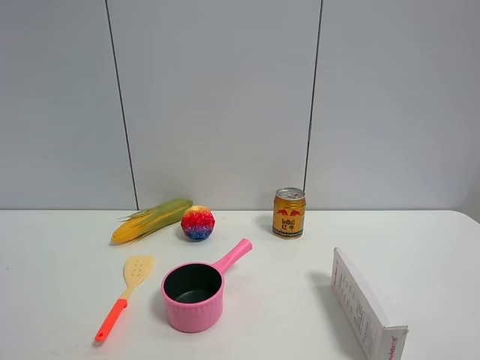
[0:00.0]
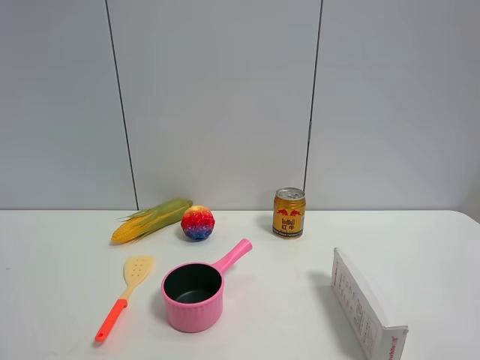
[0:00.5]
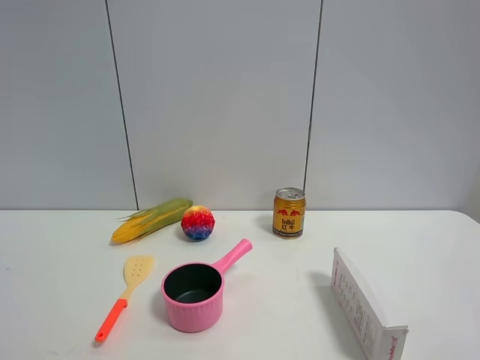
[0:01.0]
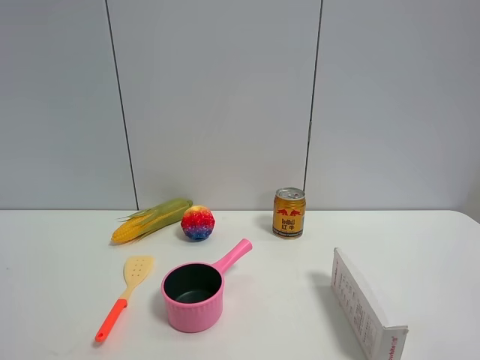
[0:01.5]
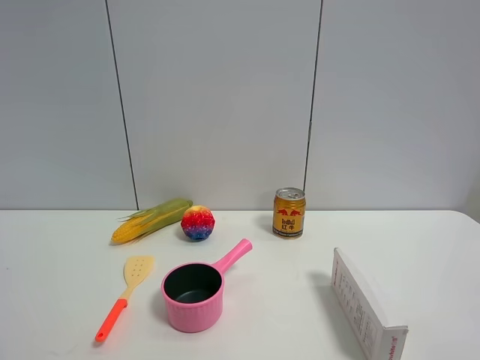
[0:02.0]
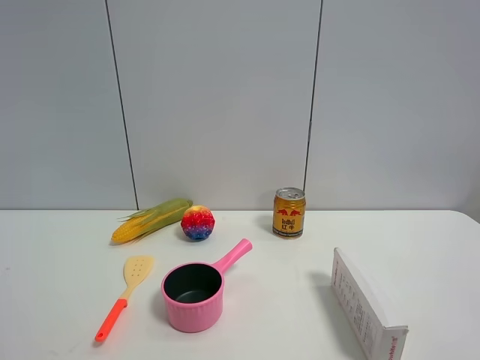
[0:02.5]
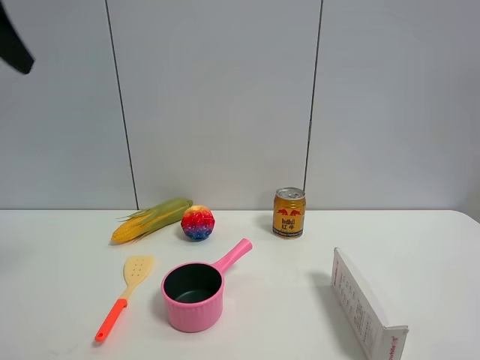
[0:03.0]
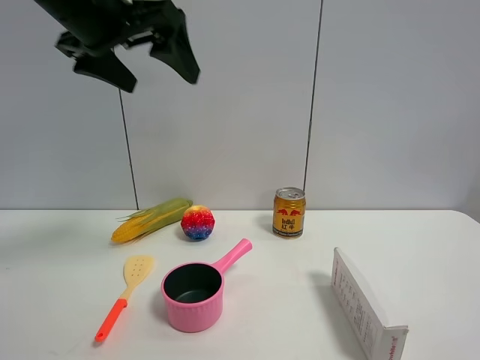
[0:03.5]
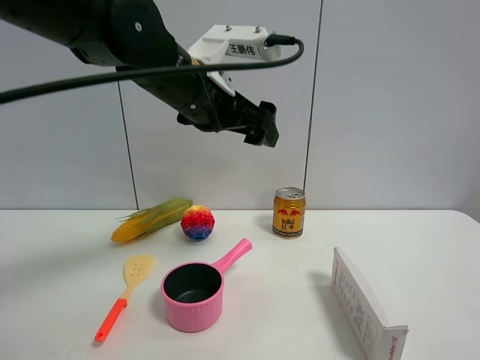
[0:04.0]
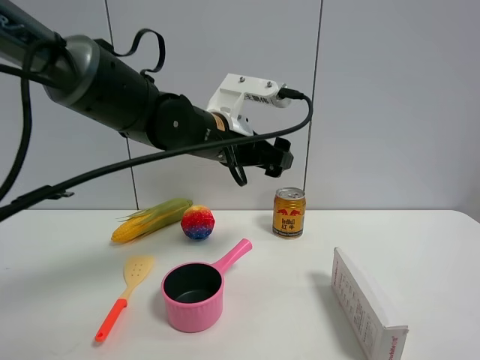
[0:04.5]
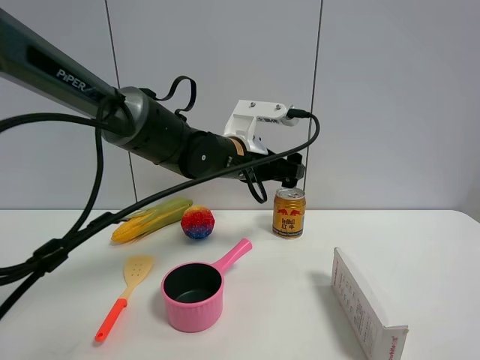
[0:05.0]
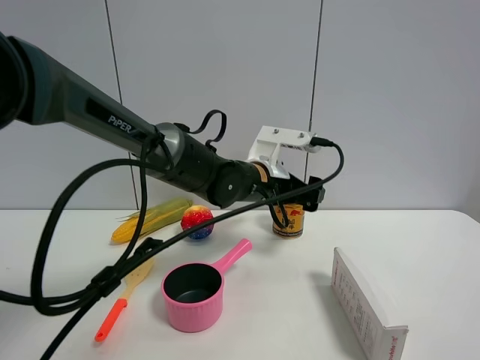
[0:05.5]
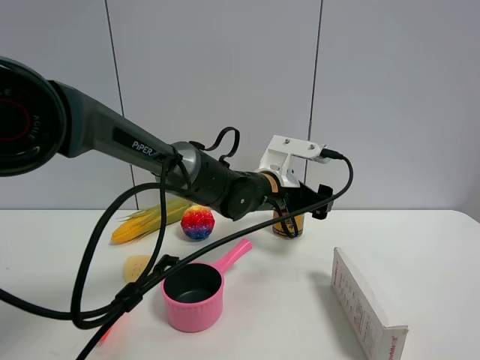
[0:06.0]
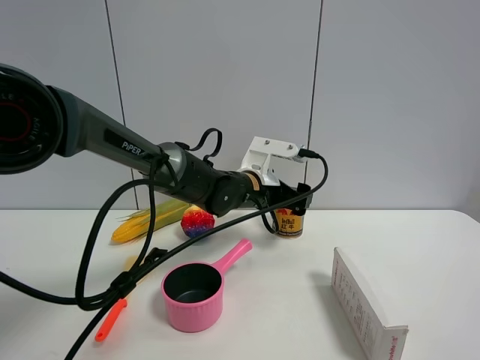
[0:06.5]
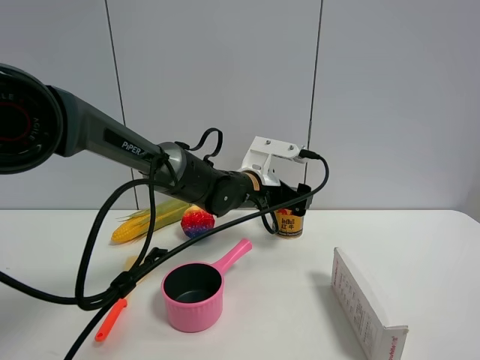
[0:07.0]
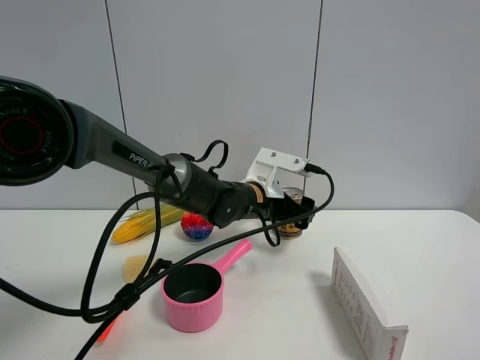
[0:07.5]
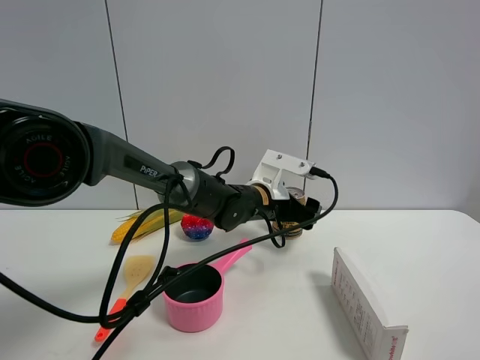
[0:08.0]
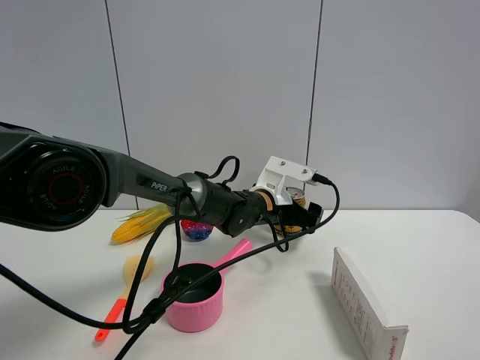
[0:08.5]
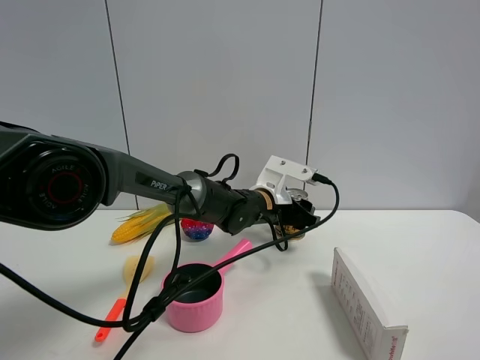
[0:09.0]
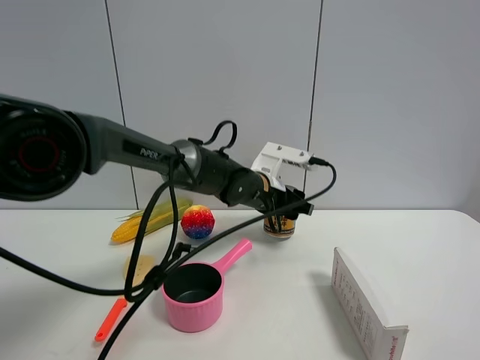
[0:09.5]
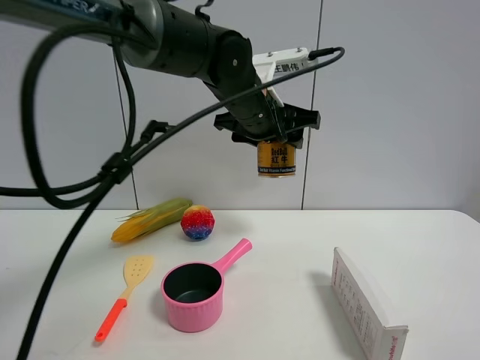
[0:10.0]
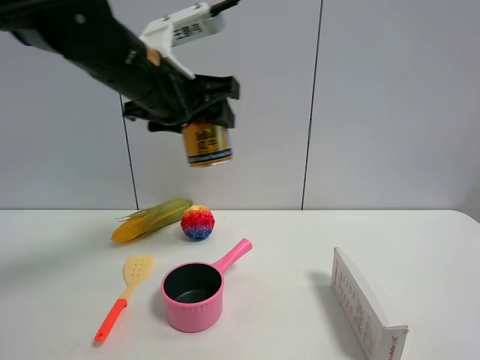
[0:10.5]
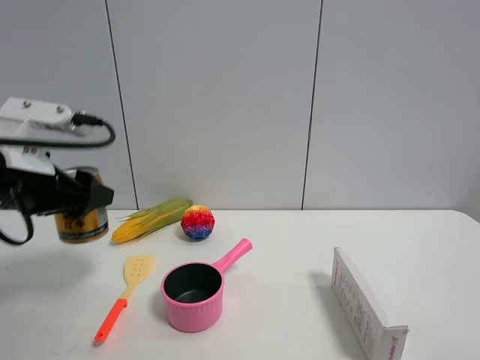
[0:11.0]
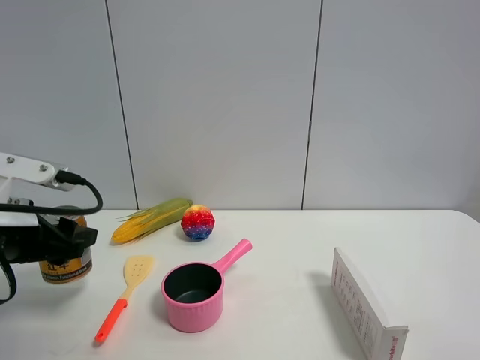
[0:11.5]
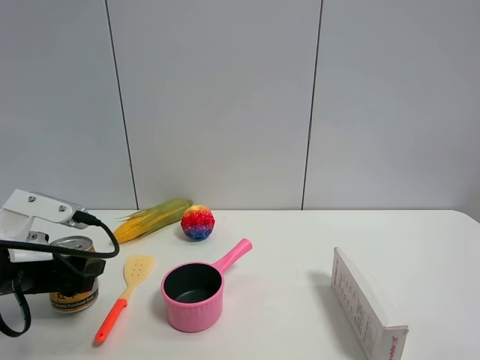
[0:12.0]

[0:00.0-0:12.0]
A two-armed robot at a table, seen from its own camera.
Task of the whole recording: the gripper move the object.
Step, 0:00.0 to 0:08.5: Grasp the red bull with the left gripper.
0:00.0 to 0:02.0: The two grippers keep their place.
0:02.0 to 0:04.0: The left gripper heads forward and to the right, covering some 40 cm.
0:04.0 to 0:06.0: The left gripper goes approximately 20 cm downward, to the right and forward.
0:06.0 to 0:08.0: The grippers move only a little.
0:08.0 to 0:10.0: The left gripper travels upward by roughly 15 cm, and closes its fingers.
0:10.0 to 0:12.0: The left gripper shifts approximately 35 cm to the left, downward and backward.

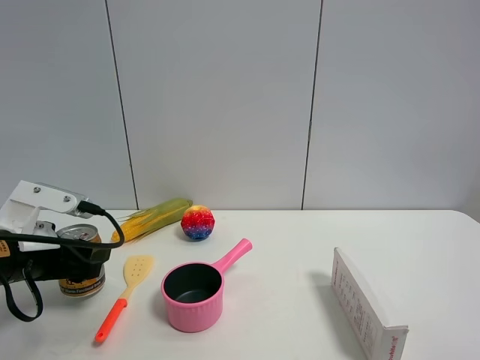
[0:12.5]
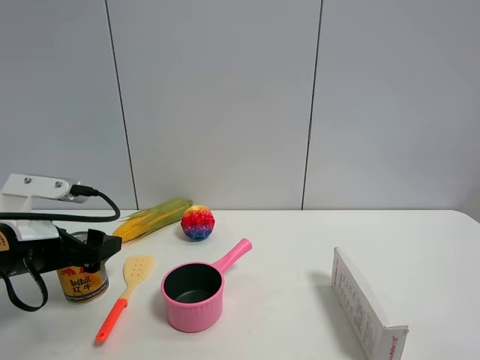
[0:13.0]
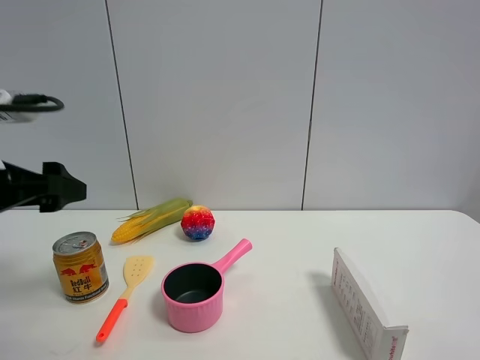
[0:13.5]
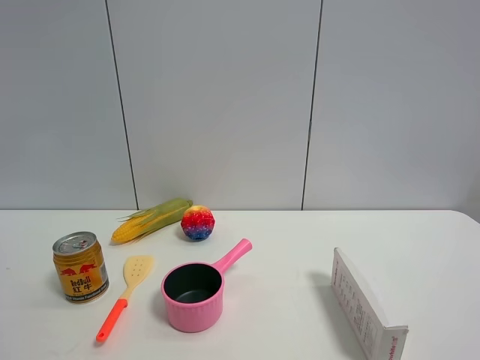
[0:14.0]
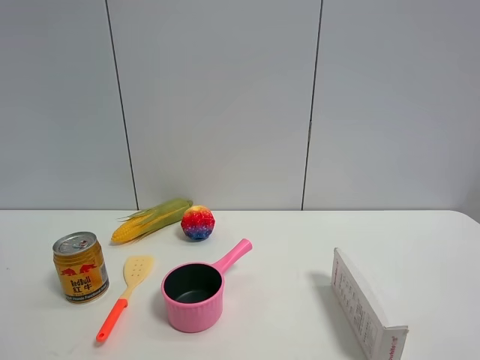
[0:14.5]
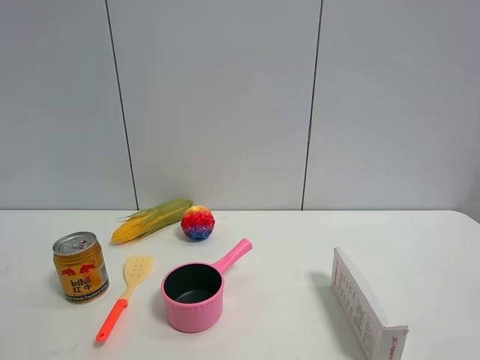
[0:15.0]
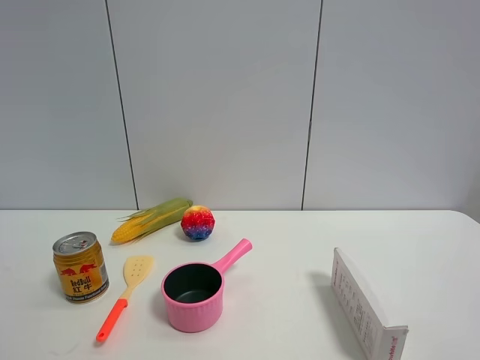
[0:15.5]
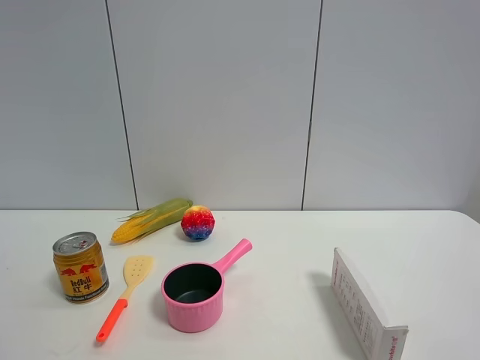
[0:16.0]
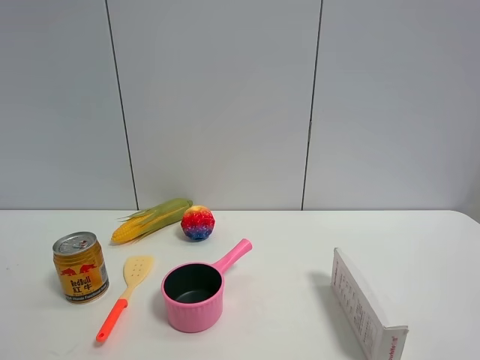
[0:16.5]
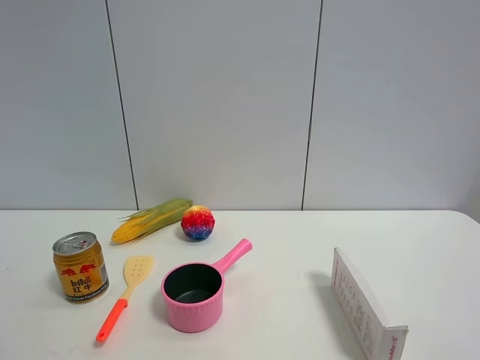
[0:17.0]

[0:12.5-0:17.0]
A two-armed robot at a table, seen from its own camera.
Task of the whole recording: the gripper move the object.
0:12.5 to 0:14.5: The left gripper shifts roughly 40 cm upward and backward, and opens up.

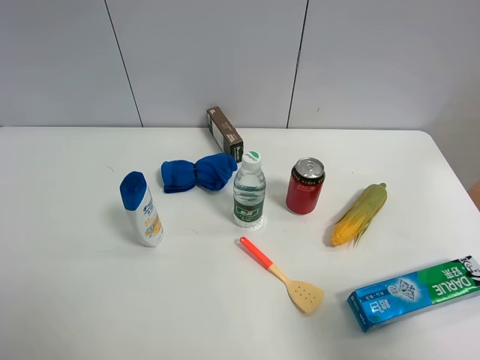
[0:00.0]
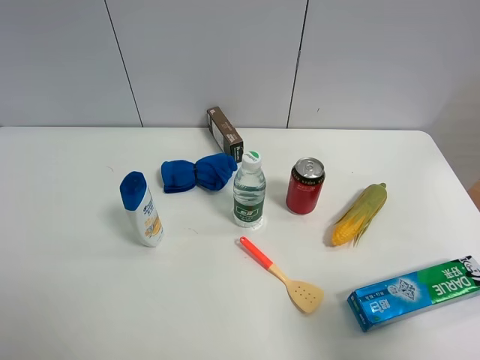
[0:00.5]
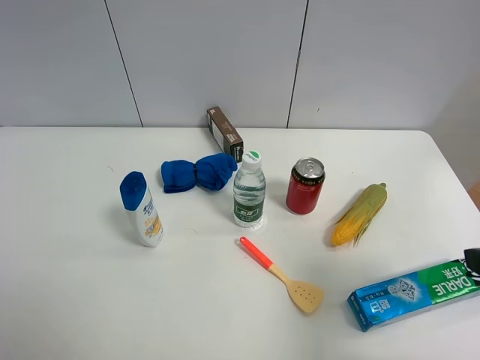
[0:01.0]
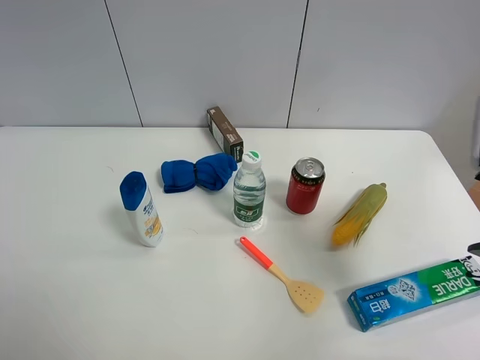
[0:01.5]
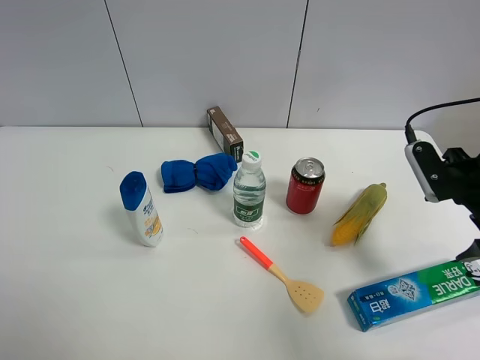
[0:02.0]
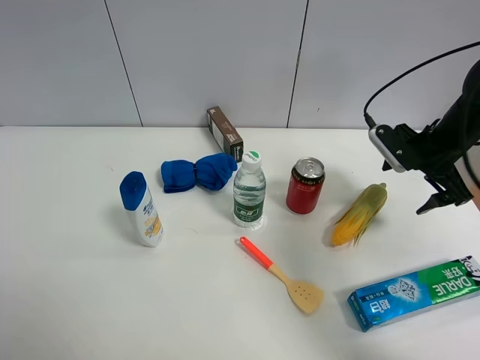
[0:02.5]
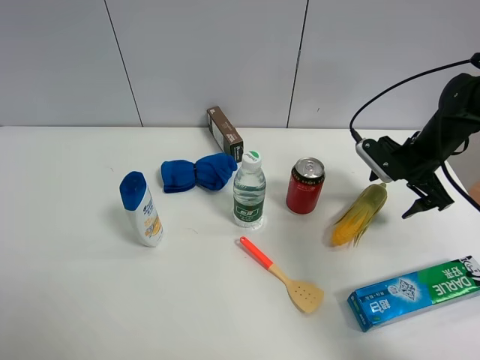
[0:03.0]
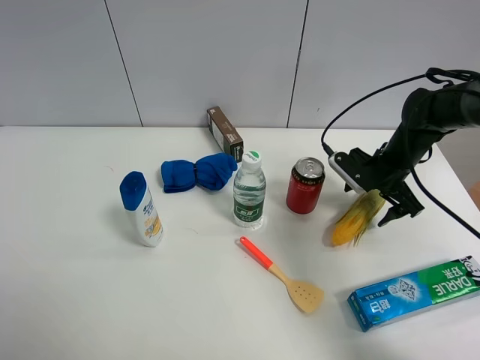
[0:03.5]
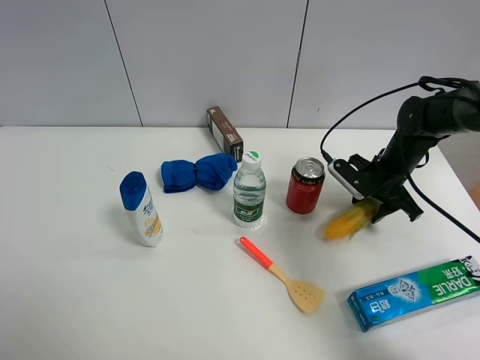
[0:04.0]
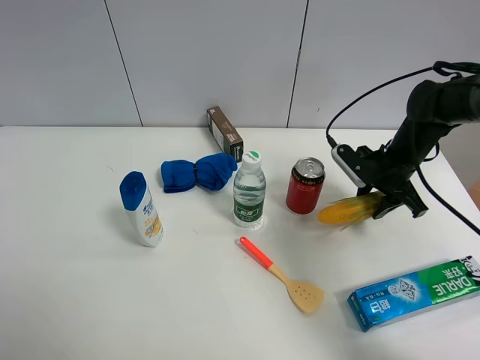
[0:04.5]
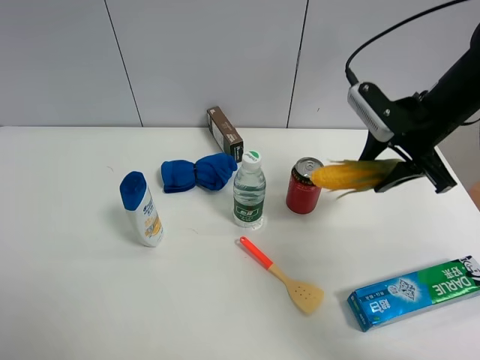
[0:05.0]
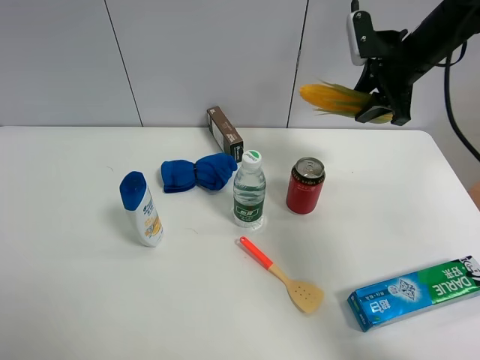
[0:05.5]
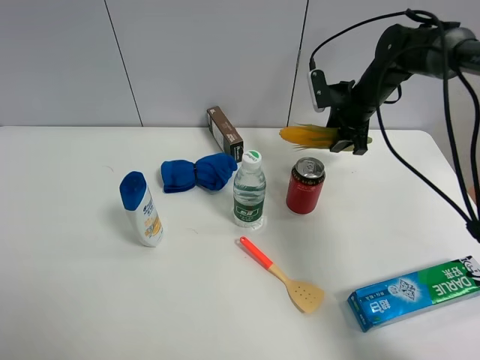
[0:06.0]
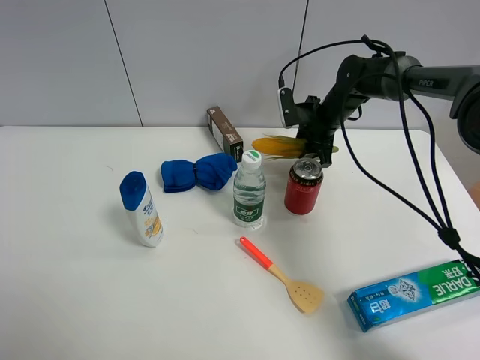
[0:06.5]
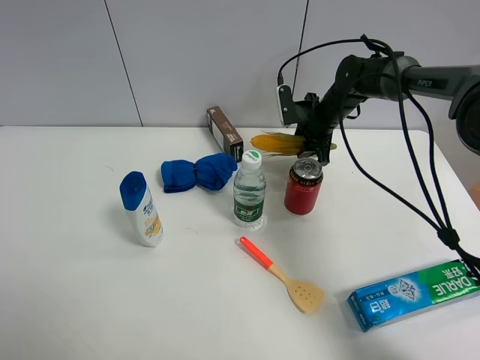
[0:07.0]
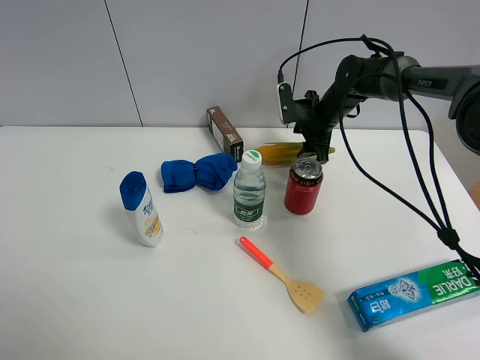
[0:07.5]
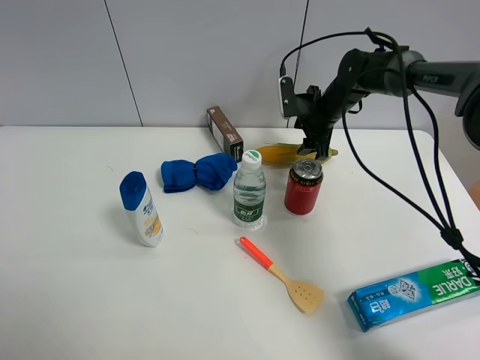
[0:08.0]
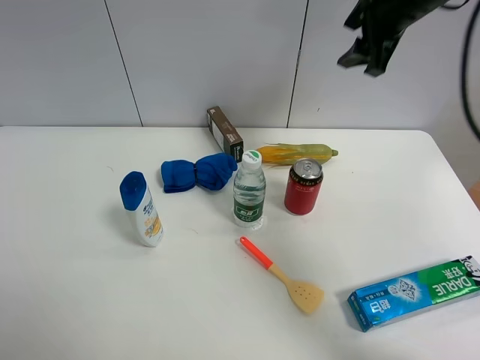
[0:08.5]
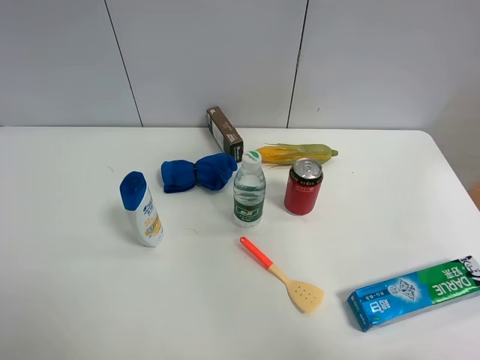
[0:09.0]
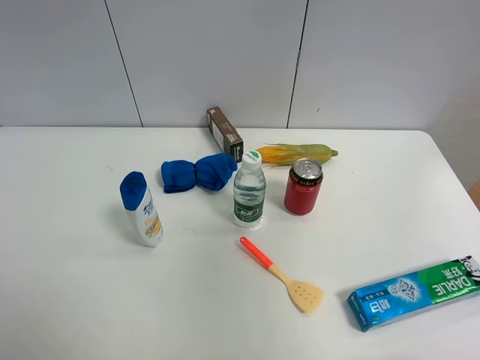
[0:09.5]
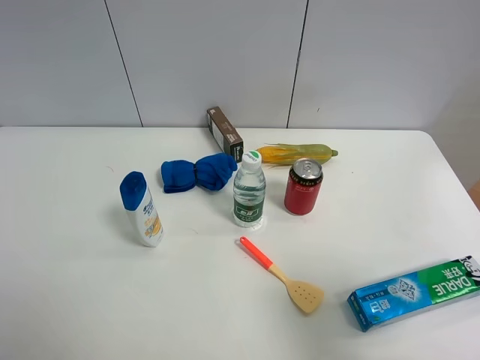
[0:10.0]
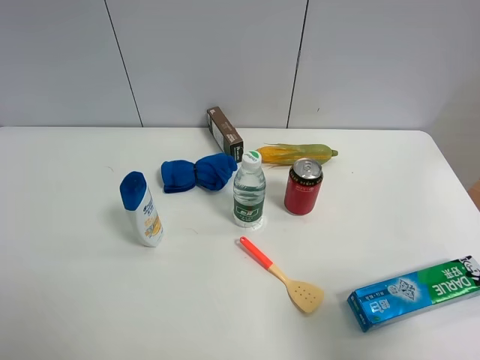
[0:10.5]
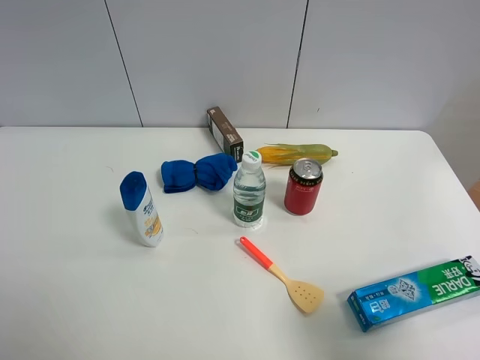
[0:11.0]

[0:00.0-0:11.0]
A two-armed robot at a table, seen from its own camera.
Task of the whole recording: the gripper move the object.
Step, 0:00.0 to 0:04.0: Grasp the corn with the right gripper.
Step, 0:04.5 to 0:07.5: Place the corn on the table with the right gripper.
0:00.0 to 0:02.0: The right gripper shifts about 25 cm forward.
0:02.0 to 0:03.5: The right gripper moves forward and downward, about 15 cm.
0:03.5 to 0:05.5: The right gripper shifts about 15 cm upward, and closes its fingers.
0:05.5 to 0:07.5: The right gripper travels downward, to the left and forward by approximately 15 cm.
0:07.5 to 0:09.0: The right gripper travels upward and backward by roughly 50 cm, and opens up.
0:09.0 to 0:11.0: The right gripper travels downward and backward by roughly 35 cm.
